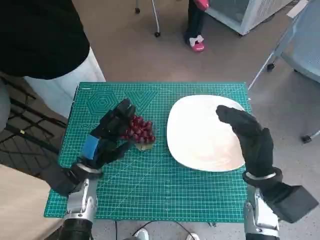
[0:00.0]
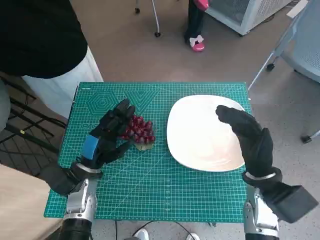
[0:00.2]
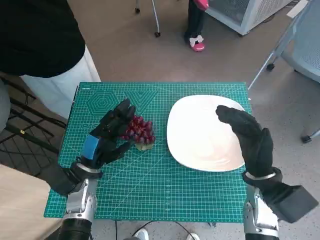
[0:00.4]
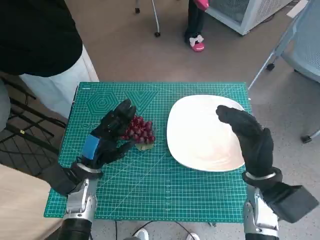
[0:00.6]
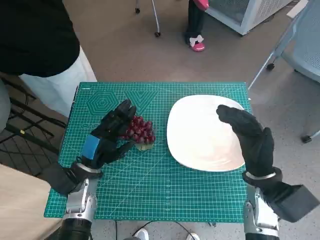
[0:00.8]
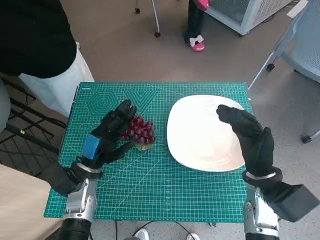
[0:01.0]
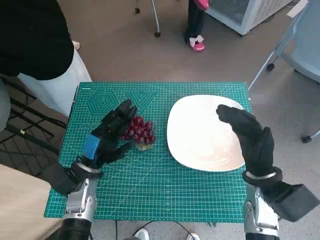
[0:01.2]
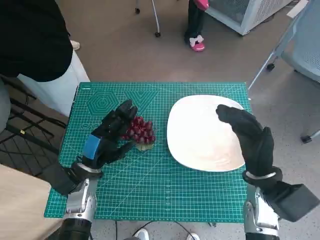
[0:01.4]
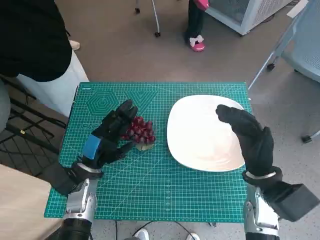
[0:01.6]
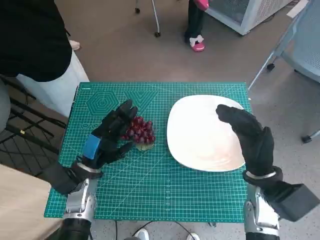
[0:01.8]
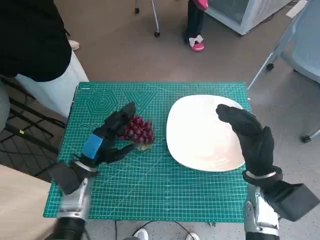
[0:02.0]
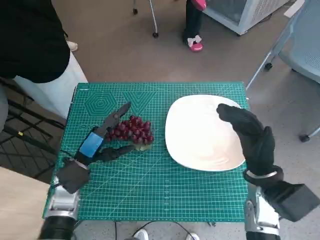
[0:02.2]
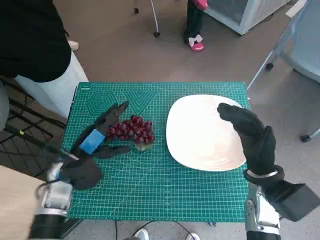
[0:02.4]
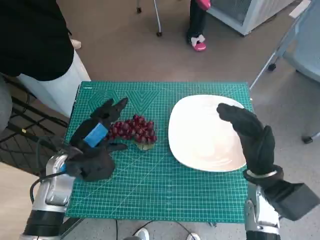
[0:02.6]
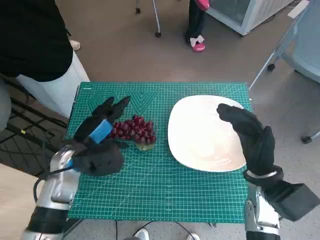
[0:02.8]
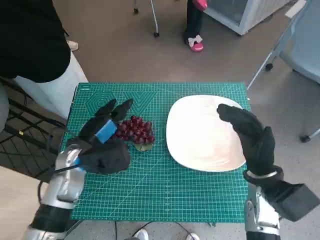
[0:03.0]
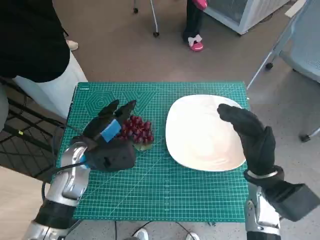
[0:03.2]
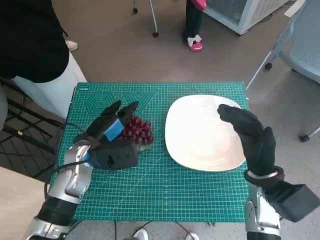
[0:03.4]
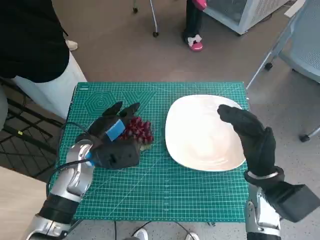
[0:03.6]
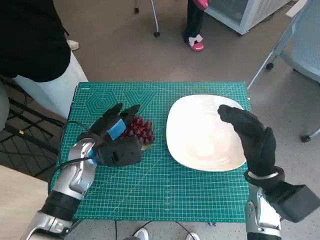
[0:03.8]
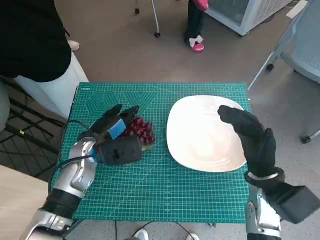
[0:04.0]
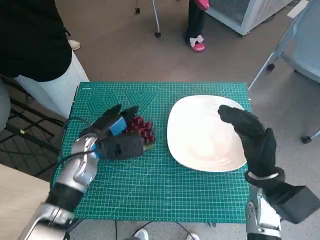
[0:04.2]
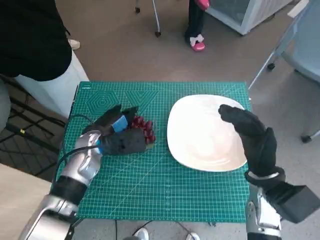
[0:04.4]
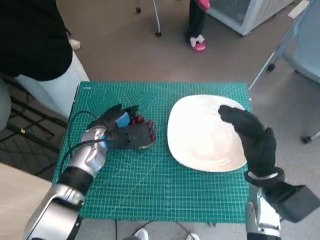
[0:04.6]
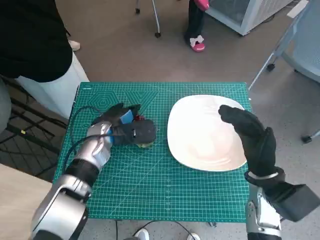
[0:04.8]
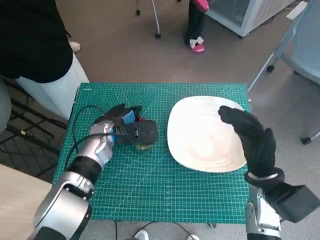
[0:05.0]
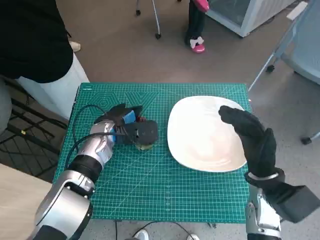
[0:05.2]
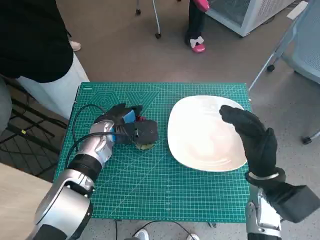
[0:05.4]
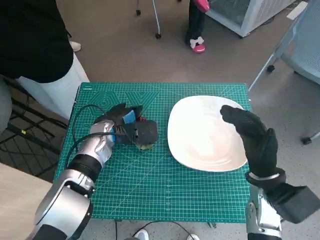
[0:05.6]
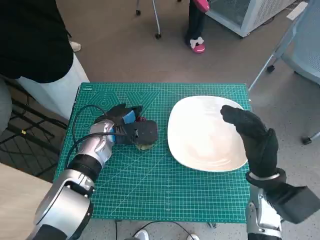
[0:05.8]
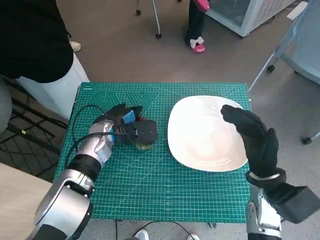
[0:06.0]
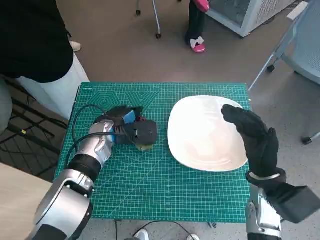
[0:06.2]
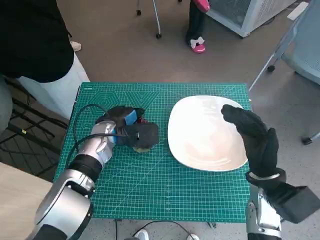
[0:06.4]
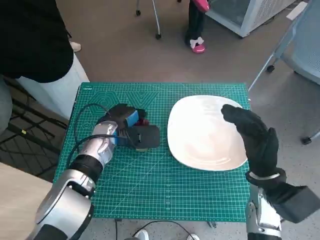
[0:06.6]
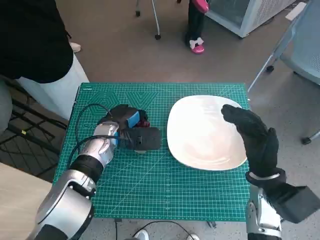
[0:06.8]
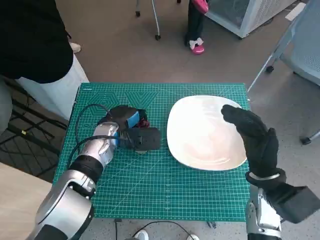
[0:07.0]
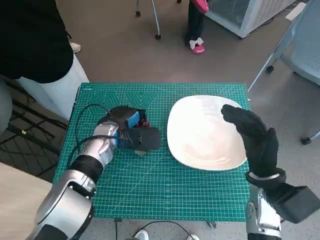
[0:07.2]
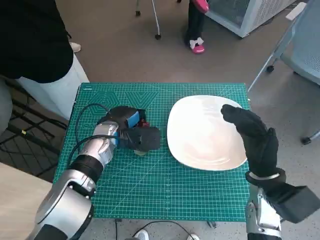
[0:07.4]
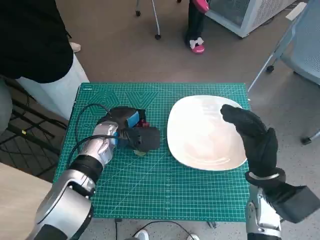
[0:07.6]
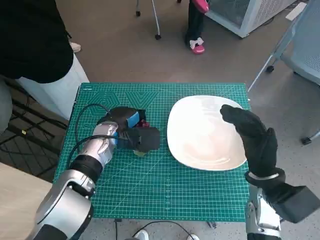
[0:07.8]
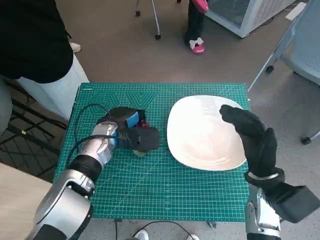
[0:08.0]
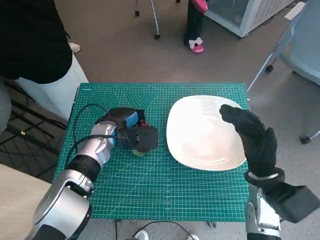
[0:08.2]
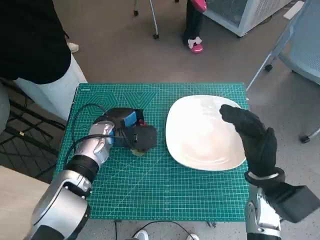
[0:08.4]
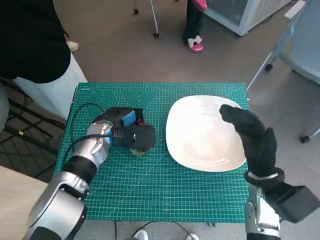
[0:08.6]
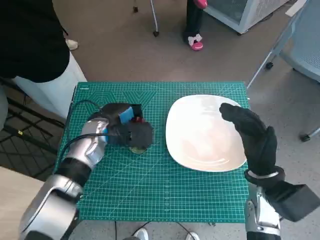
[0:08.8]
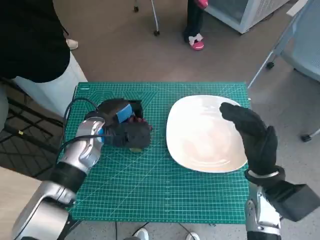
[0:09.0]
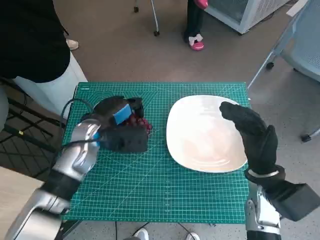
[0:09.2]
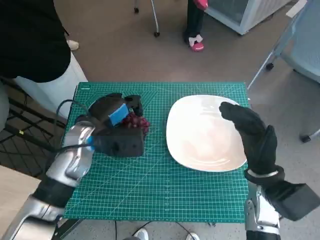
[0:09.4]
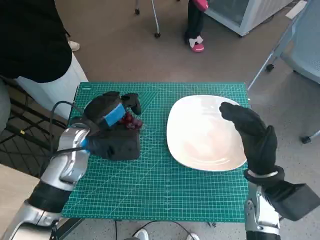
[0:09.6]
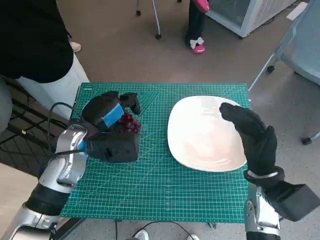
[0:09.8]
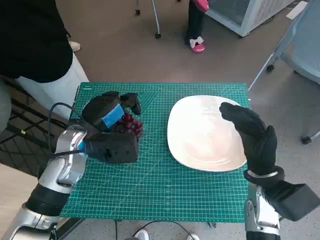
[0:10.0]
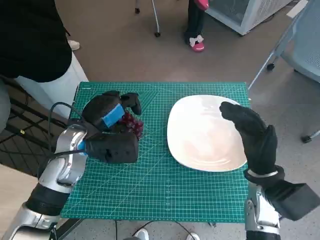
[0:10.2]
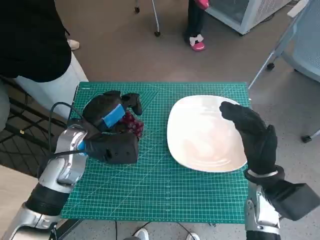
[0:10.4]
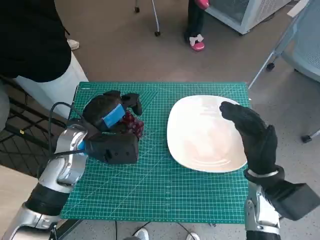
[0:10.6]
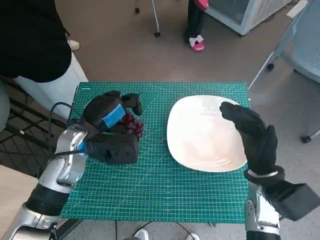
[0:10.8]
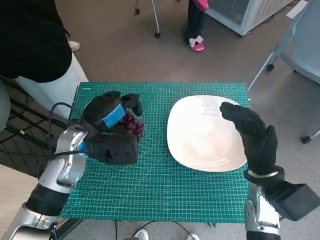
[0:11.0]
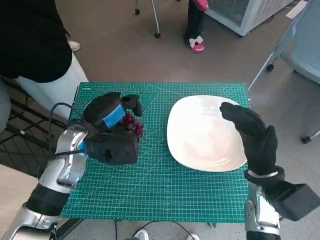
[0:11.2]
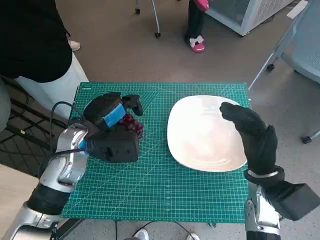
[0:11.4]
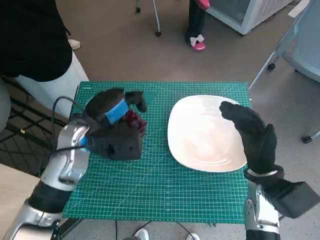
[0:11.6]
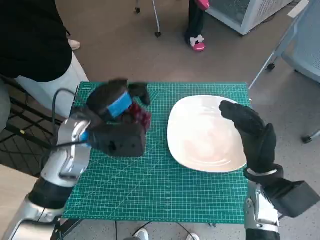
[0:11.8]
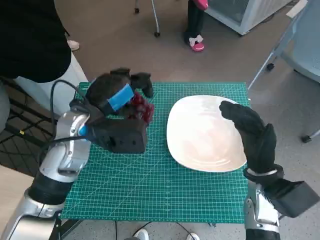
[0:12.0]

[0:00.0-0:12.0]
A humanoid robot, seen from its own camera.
Task of the whole recording: Pick up the grapes and put them on the plate.
Step, 0:00.0 to 0:06.8: Grasp the grapes with left hand.
0:01.6 to 0:03.0: The left hand shifts about 5 cm upward.
0:03.0 to 0:04.4: The hands move only a little.
0:04.4 to 0:09.0: The hands stay close to where they were, moving slightly.
0:09.0 to 0:10.4: The left hand moves approximately 5 cm.
0:10.4 to 0:12.0: There are only small adjustments of the hands.

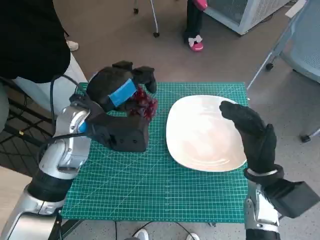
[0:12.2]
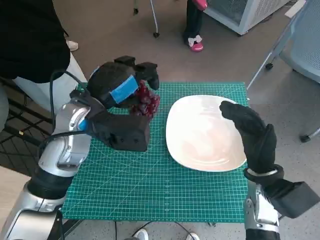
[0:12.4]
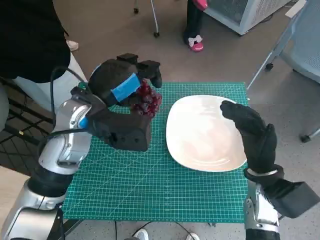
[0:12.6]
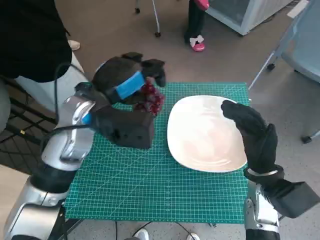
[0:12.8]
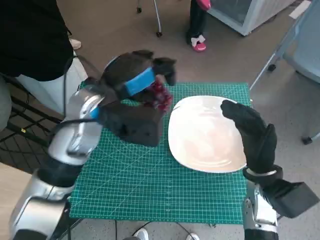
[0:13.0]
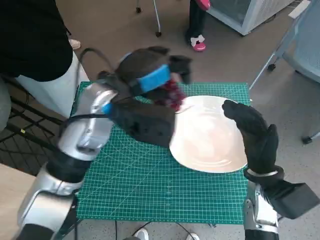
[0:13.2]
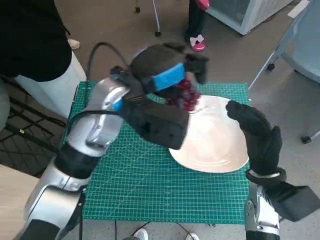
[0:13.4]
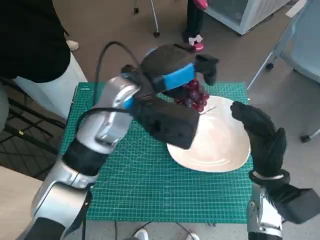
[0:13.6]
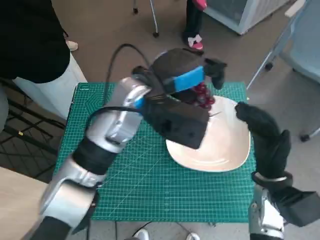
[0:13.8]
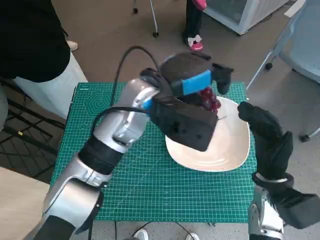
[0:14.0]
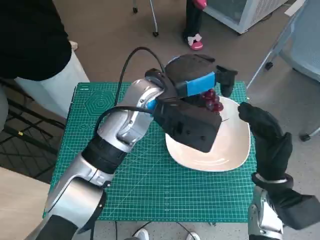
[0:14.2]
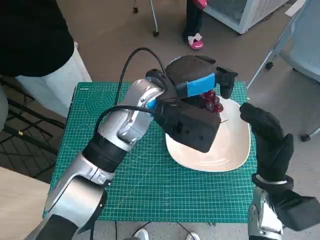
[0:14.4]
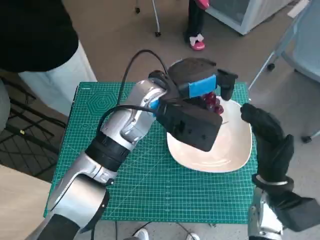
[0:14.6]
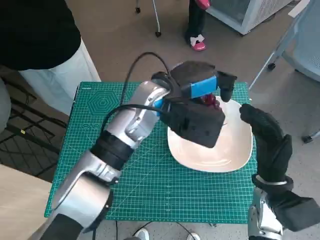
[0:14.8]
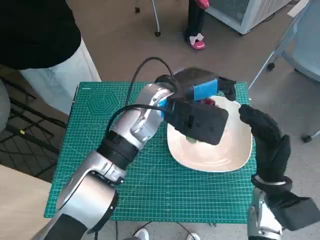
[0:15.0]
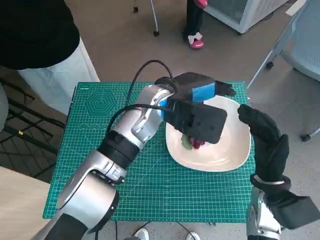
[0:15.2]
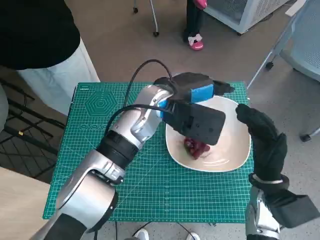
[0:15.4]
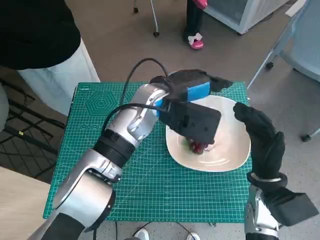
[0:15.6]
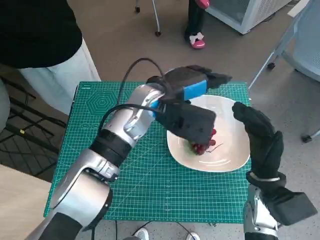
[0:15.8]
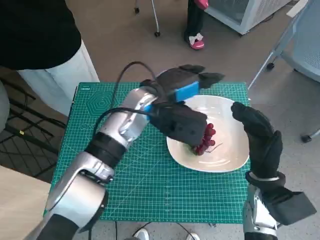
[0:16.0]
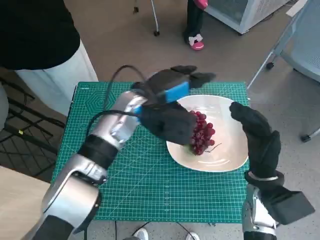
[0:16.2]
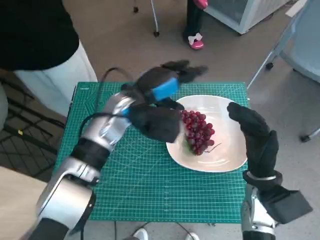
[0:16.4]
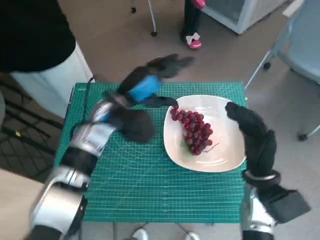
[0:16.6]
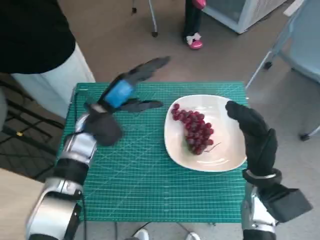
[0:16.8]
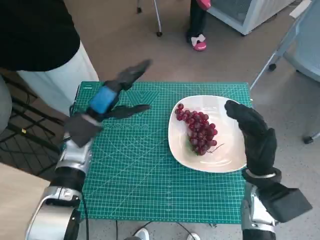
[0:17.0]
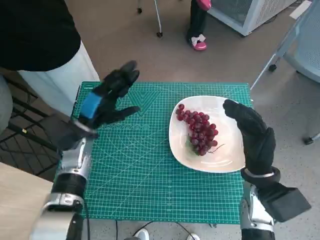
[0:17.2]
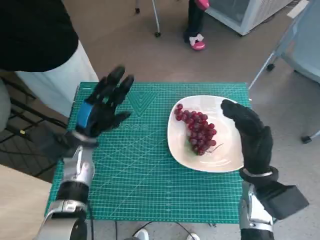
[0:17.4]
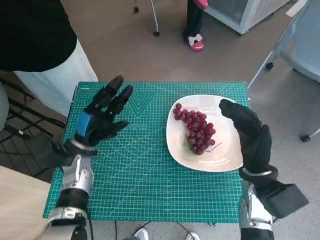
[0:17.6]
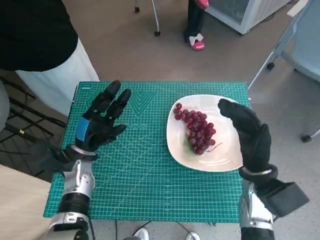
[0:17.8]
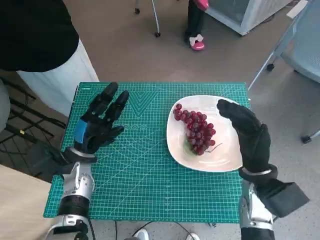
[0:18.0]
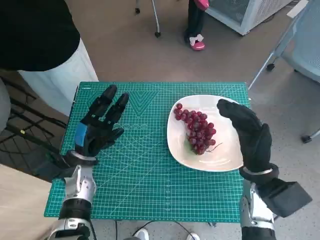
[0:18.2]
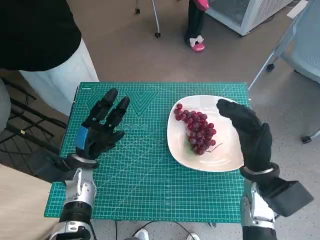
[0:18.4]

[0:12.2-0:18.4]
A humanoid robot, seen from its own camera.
Task of the whole recording: Pick up the grapes and put them on the plate.
Step, 0:12.2 to 0:15.6: Place the grapes in the plate with left hand.
0:12.2 to 0:13.8: The left hand shifts roughly 10 cm to the right.
0:13.8 to 0:15.4: The left hand shifts by some 5 cm.
0:15.4 to 0:16.8: The left hand goes roughly 15 cm to the left and downward.
0:16.8 to 0:18.4: The left hand heads downward, to the left and backward, covering approximately 15 cm.

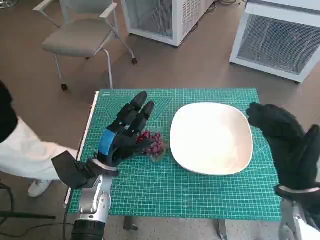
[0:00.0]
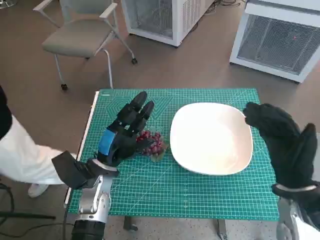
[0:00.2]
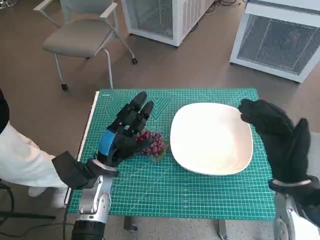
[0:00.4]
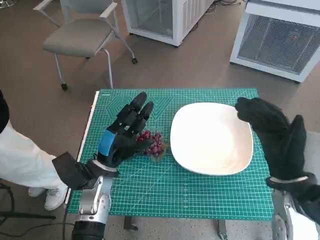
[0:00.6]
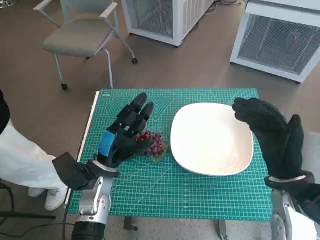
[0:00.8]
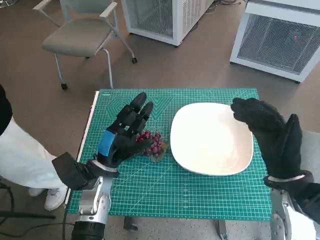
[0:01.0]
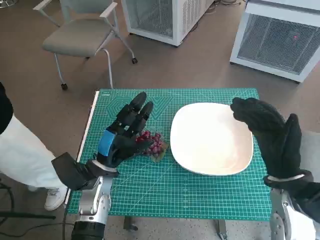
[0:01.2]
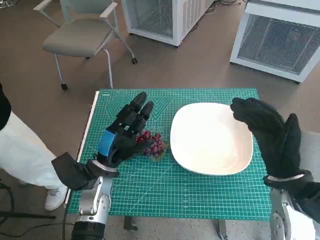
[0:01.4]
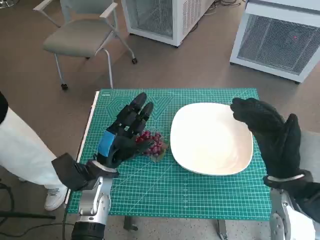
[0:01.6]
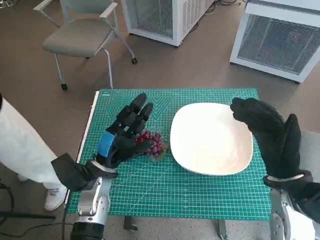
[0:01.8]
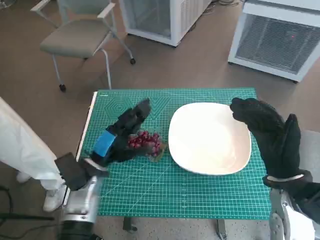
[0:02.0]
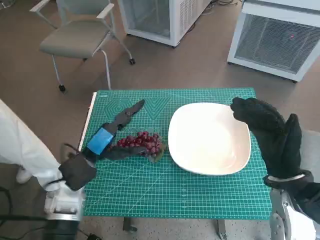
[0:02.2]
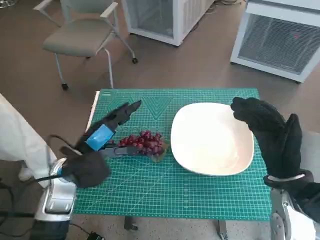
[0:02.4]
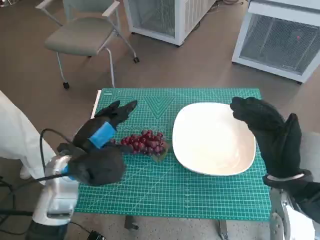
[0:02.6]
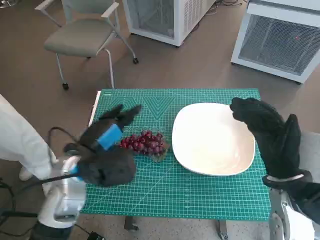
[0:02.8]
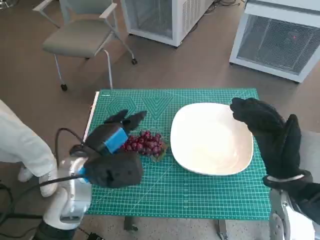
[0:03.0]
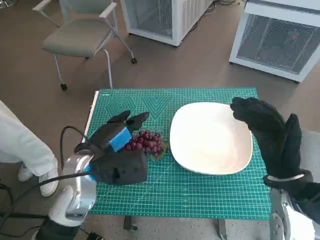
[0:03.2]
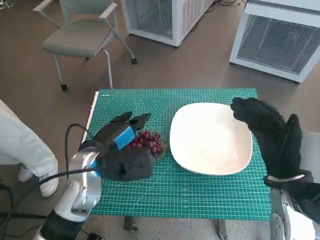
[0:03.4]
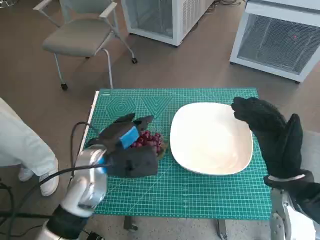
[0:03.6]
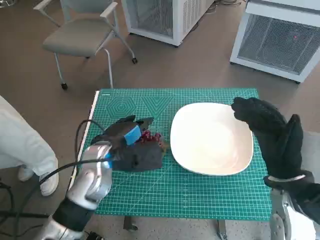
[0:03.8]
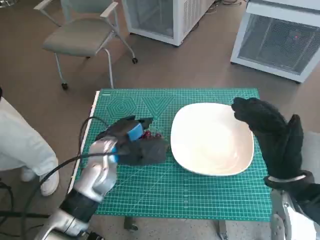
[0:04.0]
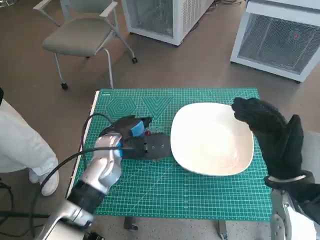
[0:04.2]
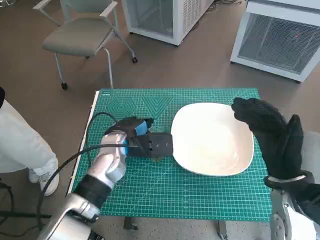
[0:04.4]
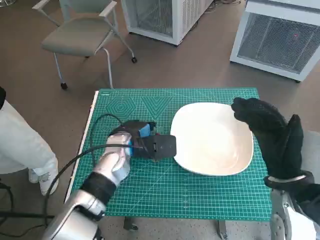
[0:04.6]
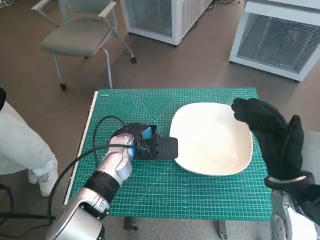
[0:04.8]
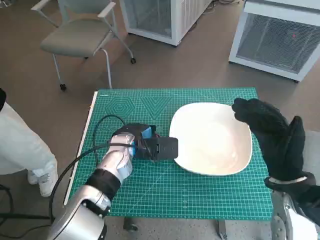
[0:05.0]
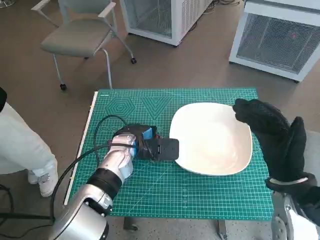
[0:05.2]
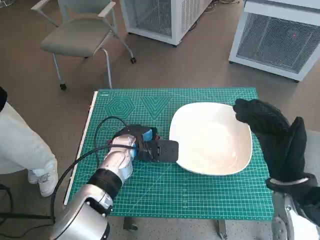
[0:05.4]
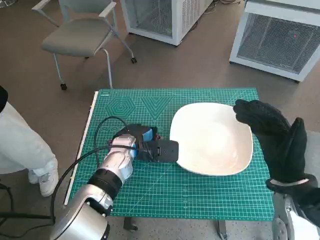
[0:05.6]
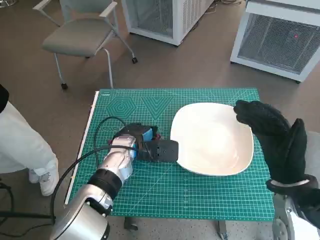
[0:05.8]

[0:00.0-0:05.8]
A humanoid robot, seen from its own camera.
Task of the whole recording: Pick up the grapes and put them on the plate.
0:01.4 to 0:02.8: The left hand is displaced upward by some 10 cm.
0:02.8 to 0:04.4: The left hand goes some 10 cm forward and to the right.
0:04.4 to 0:05.8: The hands make only small movements.
